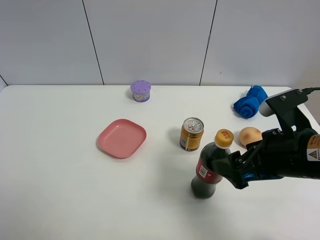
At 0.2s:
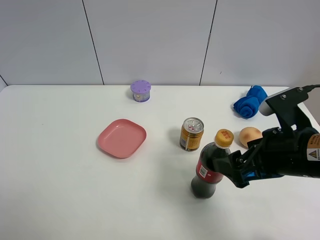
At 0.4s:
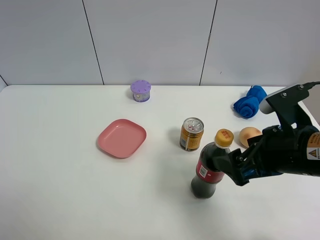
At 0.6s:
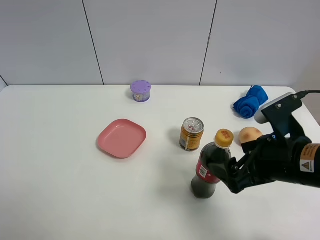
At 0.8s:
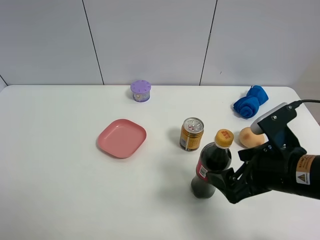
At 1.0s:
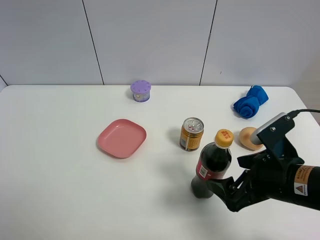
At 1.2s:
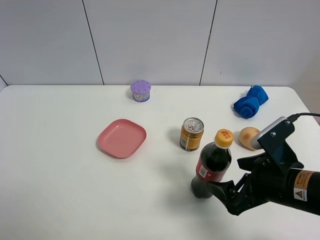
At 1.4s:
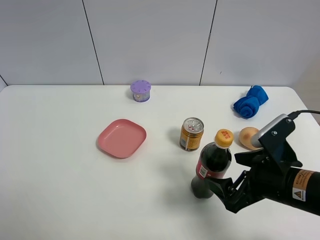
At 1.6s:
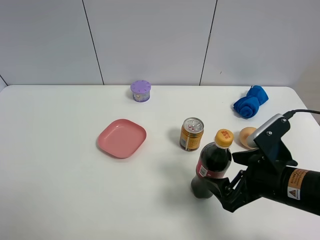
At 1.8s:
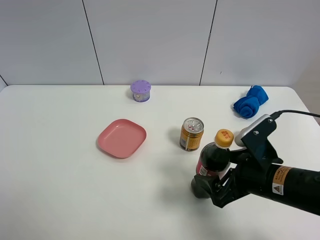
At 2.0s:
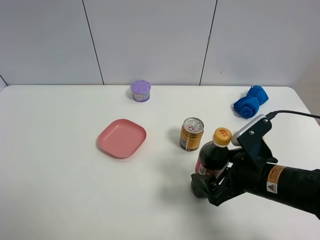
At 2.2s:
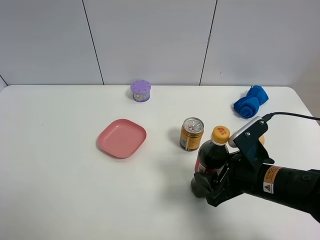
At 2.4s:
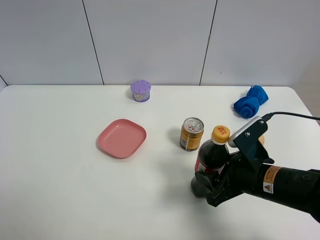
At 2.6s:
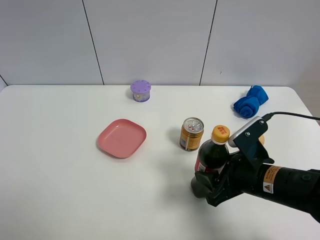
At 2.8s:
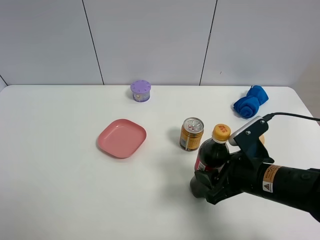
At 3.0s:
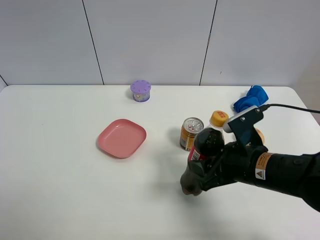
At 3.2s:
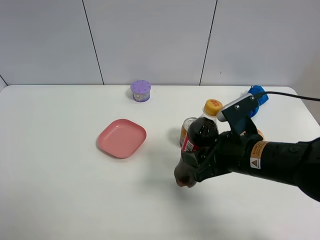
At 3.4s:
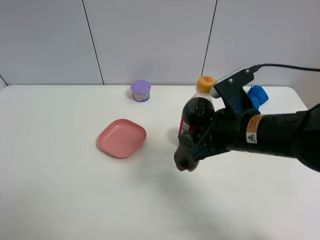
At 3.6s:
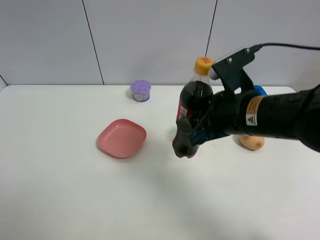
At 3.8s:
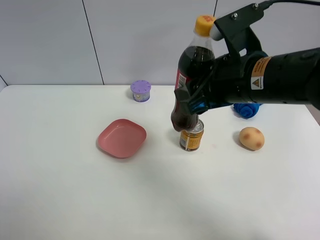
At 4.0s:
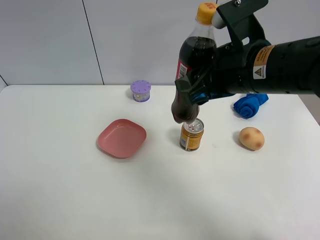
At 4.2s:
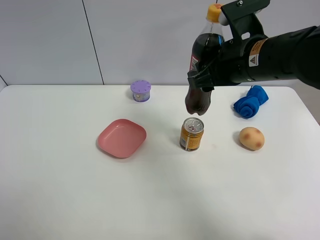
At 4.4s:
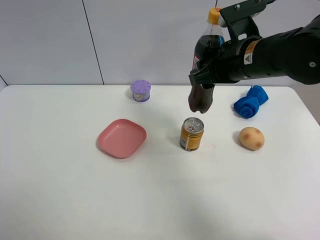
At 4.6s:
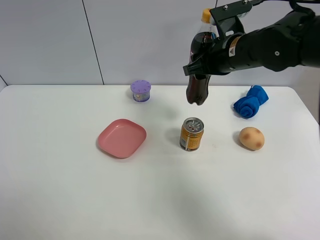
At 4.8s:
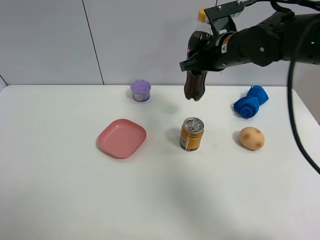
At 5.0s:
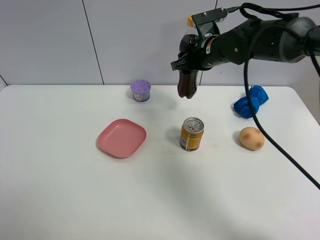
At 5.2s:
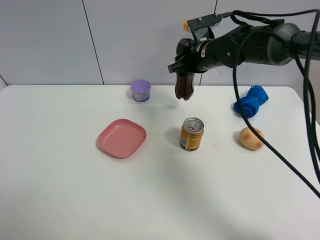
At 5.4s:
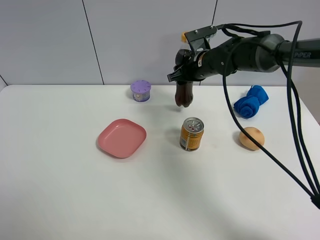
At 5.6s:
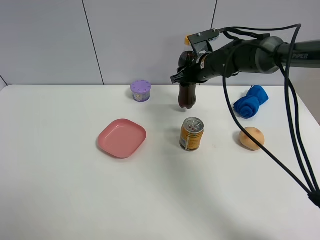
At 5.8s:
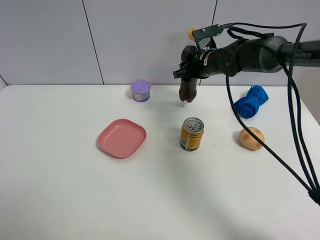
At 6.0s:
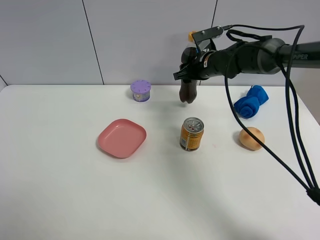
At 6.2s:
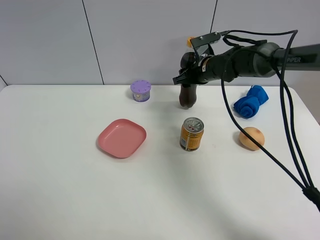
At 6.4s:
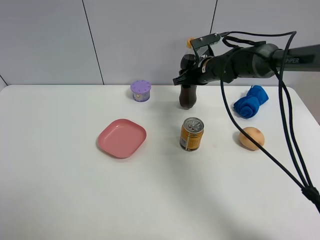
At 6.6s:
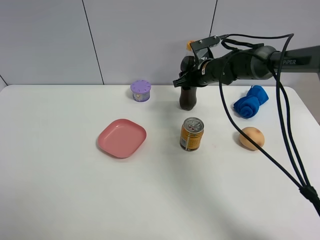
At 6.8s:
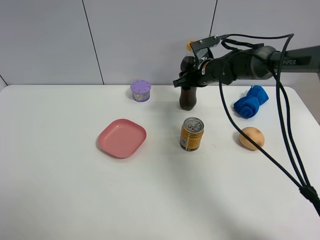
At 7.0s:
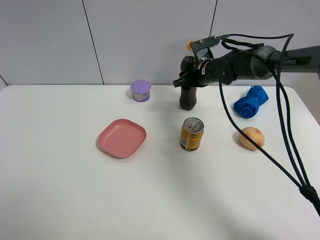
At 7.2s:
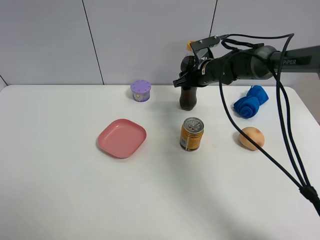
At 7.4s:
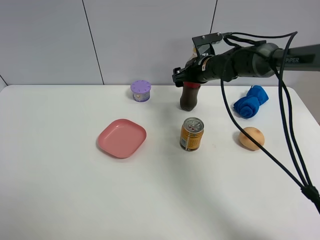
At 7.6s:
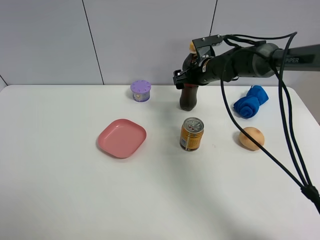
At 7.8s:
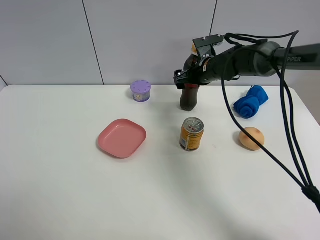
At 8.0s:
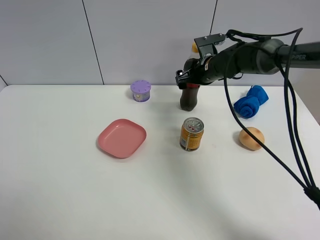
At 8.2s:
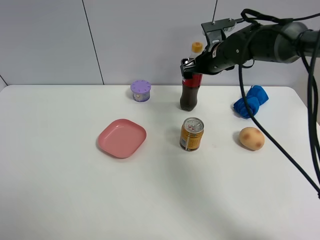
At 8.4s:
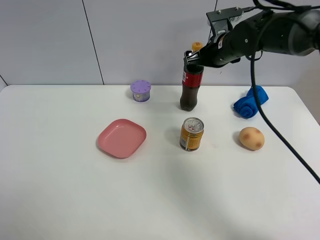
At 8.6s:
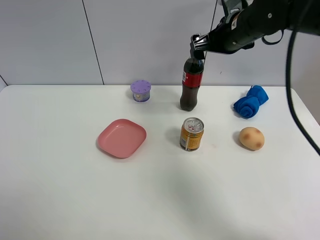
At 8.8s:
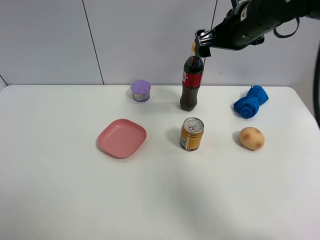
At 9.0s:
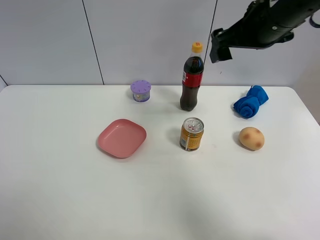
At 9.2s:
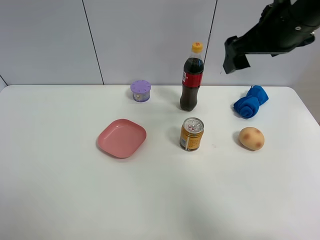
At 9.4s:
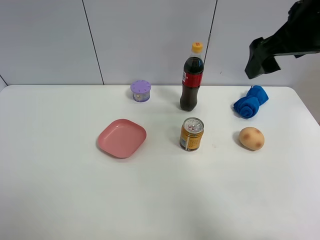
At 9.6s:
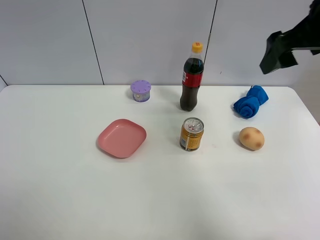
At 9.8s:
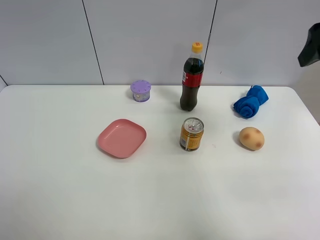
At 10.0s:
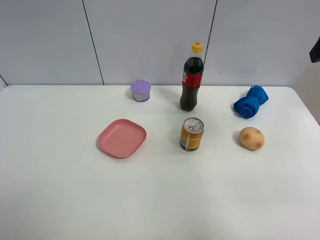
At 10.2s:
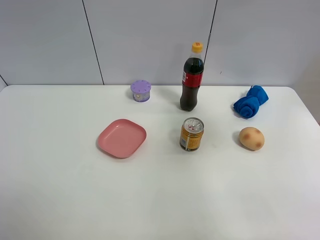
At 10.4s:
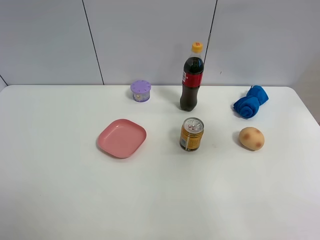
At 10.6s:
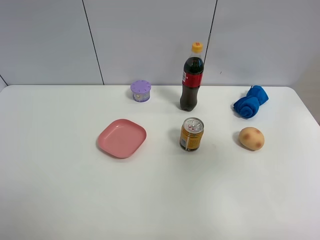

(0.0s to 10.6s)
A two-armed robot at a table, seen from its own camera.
Task of the whole recording: the gripper move the object.
Step, 0.0s - 2.6s: Grasp the coke with the right gripper.
Step, 2.8s - 7.4s: Place the coke on the table with the right gripper.
0.0s - 1.6s: The right gripper goes roughly 5 cm downward.
1.6s - 3.0s: The right gripper closes.
3.0s - 4.6s: The right gripper shifts about 20 cm forward and upward.
4.6s - 6.0s: The right gripper travels forward and downward by about 15 cm.
6.0s - 7.6s: The right gripper opens.
7.6s - 9.0s: The right gripper travels upward and backward by about 25 cm.
9.0s - 10.6s: The right gripper travels backward and to the right by approximately 20 cm.

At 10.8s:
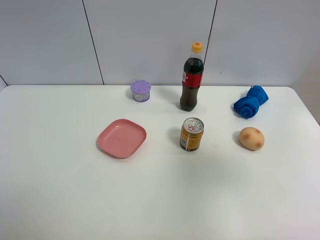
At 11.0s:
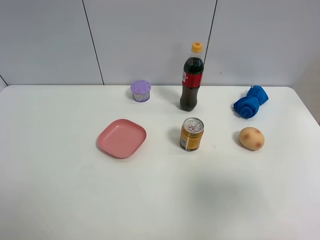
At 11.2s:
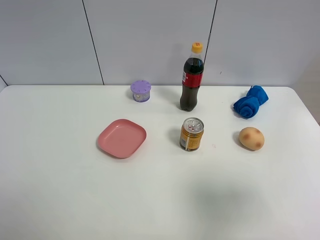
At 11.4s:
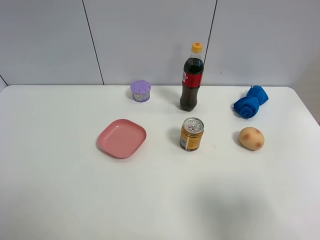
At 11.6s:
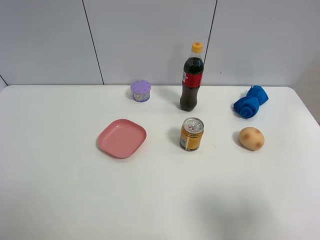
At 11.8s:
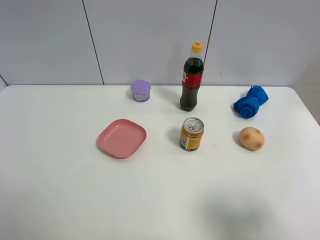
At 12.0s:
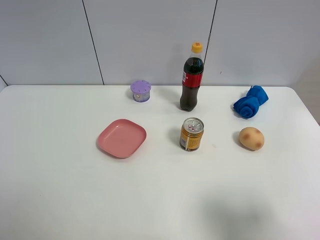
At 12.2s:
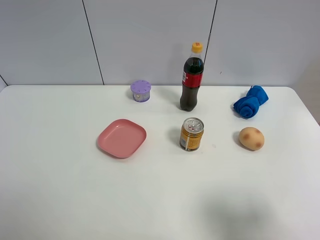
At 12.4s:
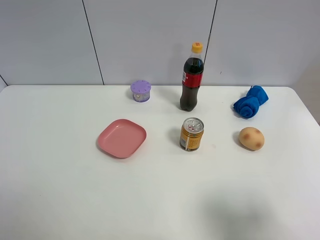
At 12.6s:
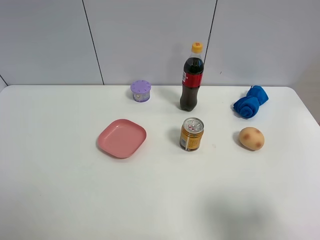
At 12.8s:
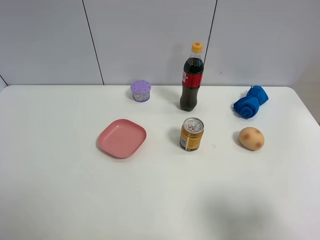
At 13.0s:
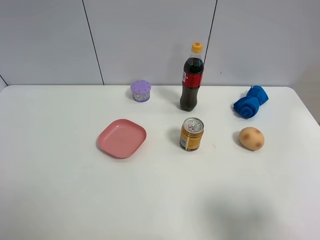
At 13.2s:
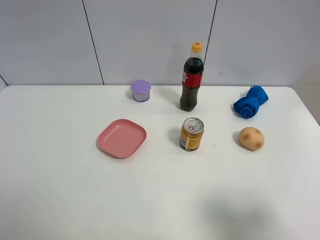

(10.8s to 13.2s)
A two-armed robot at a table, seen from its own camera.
Task of the whole recording: the gripper move the object.
10.8s - 12.0s: The right gripper moves downward and backward, some 15 cm.
12.0s - 13.2s: Both grippers stay about where they are.

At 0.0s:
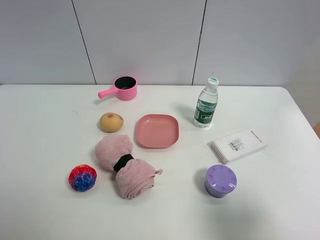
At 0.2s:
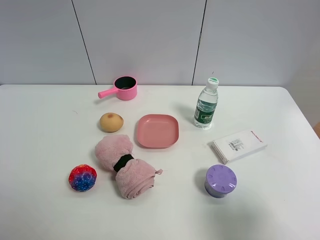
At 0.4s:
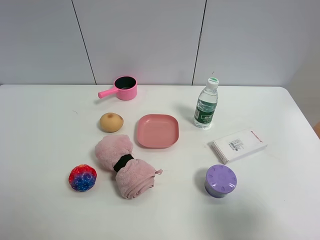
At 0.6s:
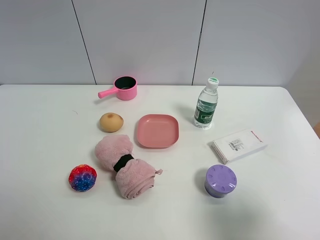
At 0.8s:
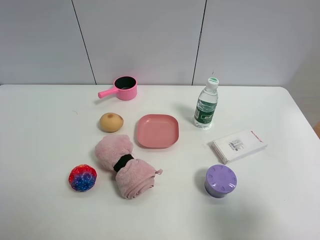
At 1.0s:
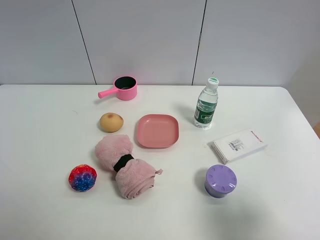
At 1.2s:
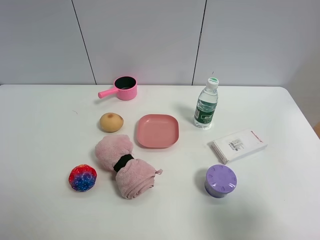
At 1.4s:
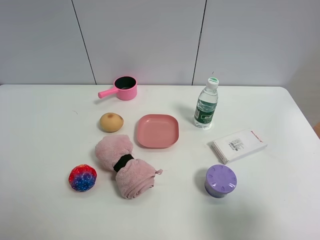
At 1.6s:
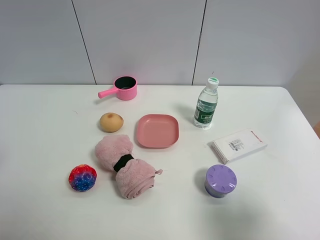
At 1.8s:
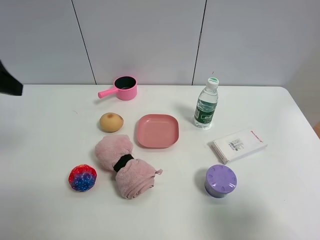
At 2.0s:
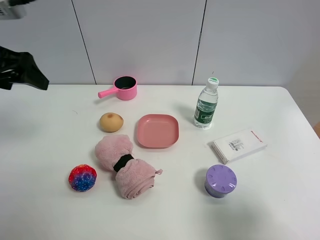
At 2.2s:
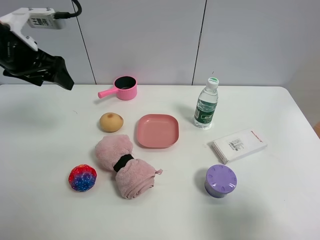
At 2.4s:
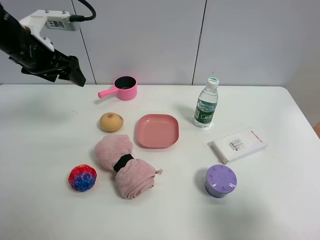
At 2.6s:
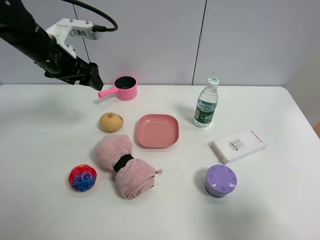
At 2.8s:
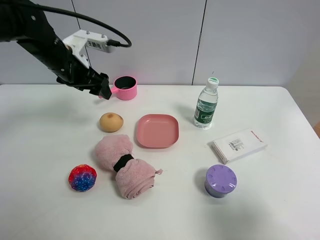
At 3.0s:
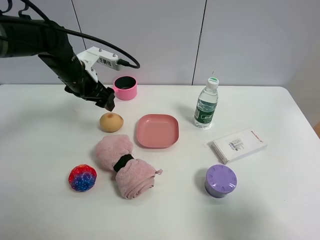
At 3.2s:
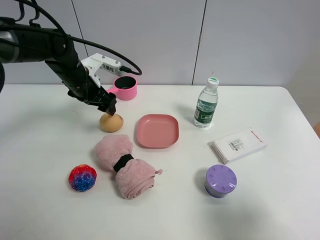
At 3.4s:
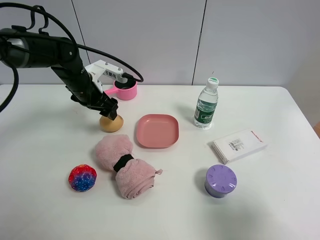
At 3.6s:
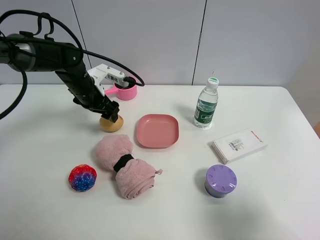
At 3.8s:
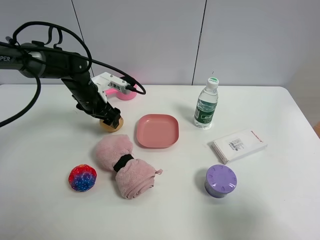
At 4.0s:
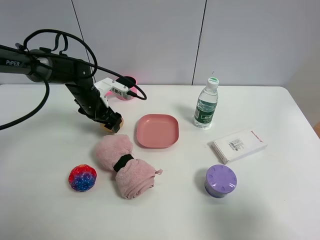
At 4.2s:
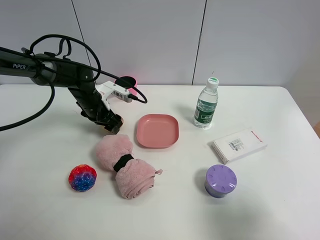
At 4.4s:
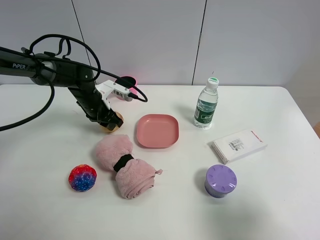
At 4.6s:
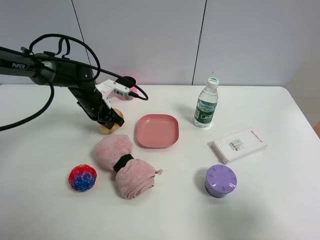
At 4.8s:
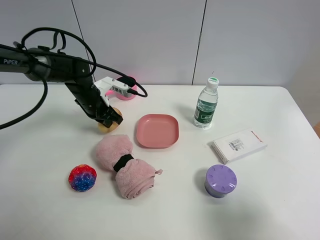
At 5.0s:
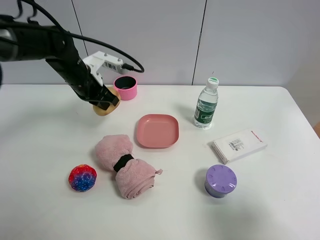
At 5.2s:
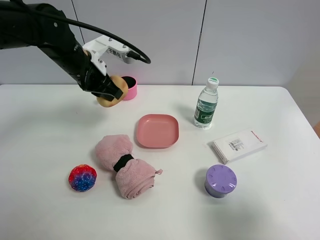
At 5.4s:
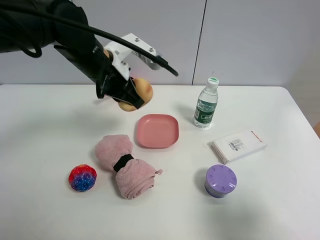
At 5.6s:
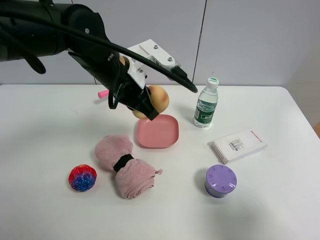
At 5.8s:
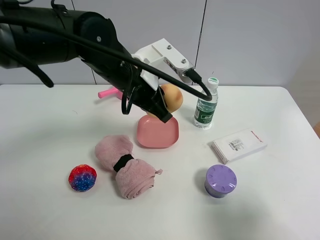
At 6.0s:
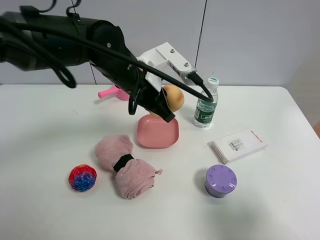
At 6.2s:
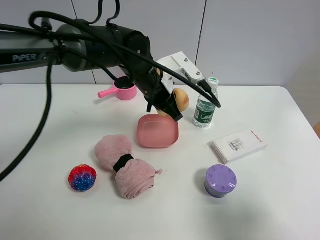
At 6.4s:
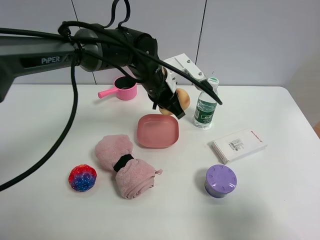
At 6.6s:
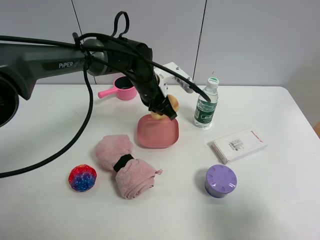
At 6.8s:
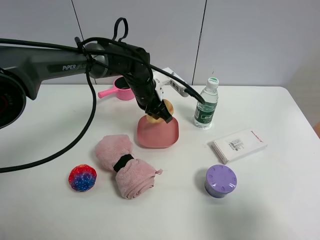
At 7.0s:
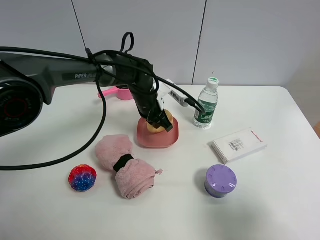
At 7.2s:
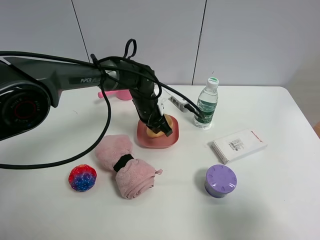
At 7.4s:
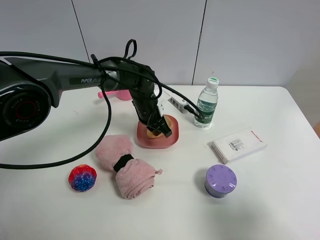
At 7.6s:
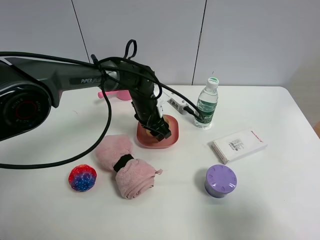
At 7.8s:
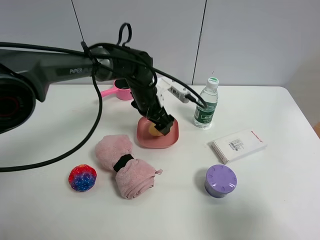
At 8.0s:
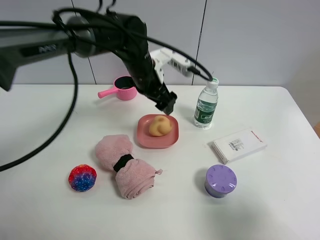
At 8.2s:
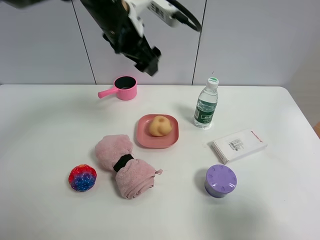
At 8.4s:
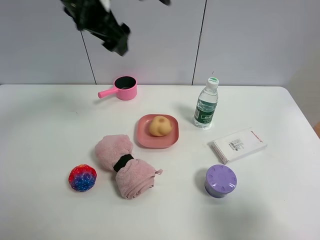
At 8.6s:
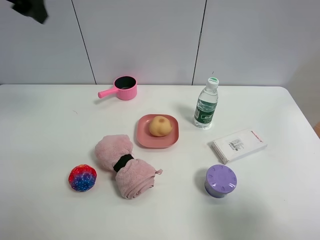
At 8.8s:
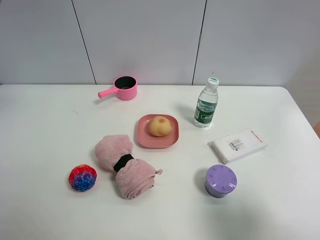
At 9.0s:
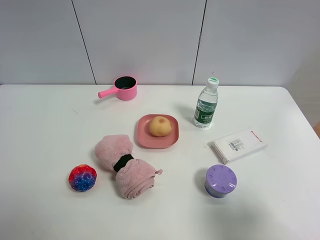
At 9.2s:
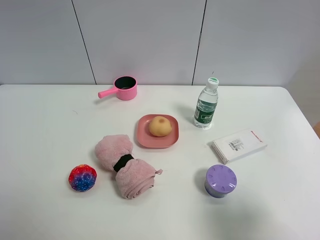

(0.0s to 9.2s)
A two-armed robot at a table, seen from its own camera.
Task of the whole recording: the gripper move the object.
Step, 0.0s - 4.6s: Grasp the egg yolk pastry with the left gripper.
Step, 4.8s - 7.8s: Place the egg yolk pastry into the pink plate with the left gripper.
1.6s - 3.0s: The left gripper shifts roughly 35 cm forward, downward and to the right.
3.0s - 4.6s: The left gripper heads downward, covering approximately 10 cm, and closes up.
4.6s - 6.2s: The left gripper shifts about 20 cm to the right and upward.
6.2s - 7.6s: The left gripper moves downward, approximately 10 cm, and opens its fingers.
7.6s - 9.2s: The left gripper is displaced upward, to the left and backward by approximately 60 cm.
